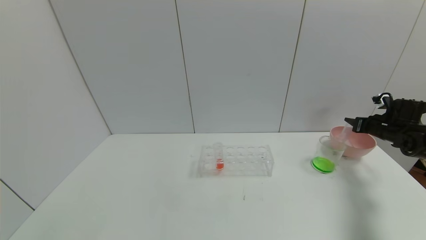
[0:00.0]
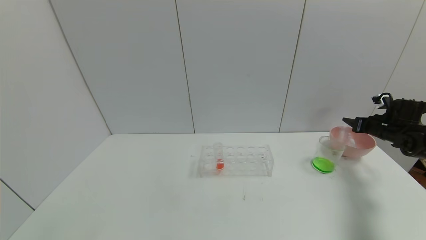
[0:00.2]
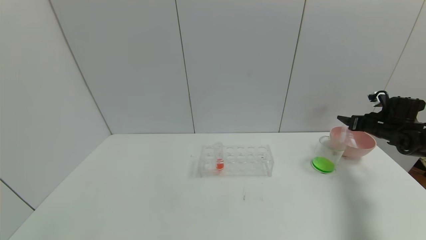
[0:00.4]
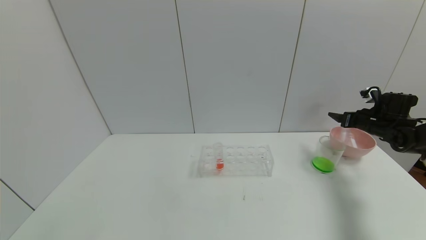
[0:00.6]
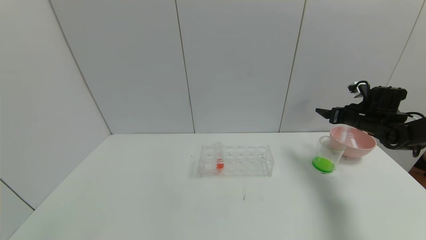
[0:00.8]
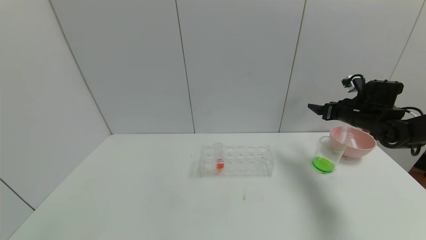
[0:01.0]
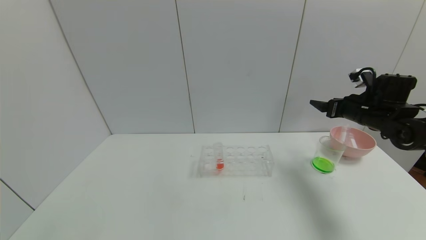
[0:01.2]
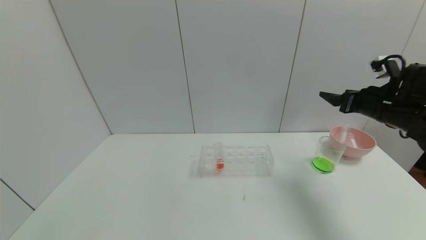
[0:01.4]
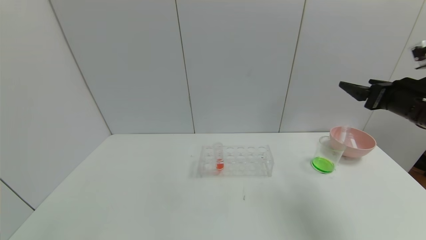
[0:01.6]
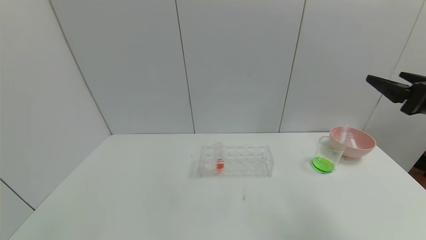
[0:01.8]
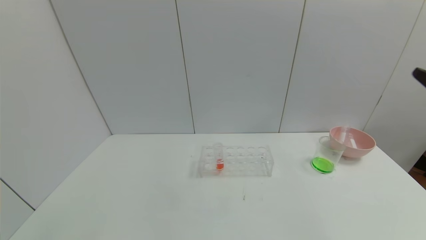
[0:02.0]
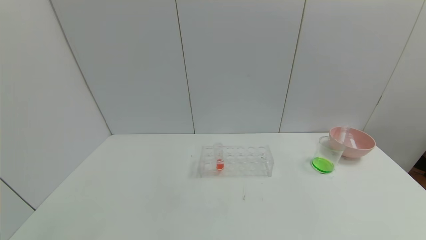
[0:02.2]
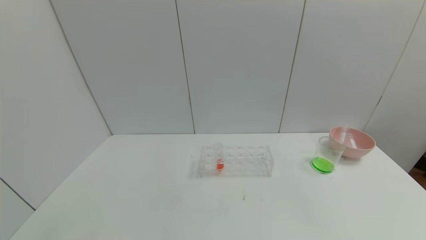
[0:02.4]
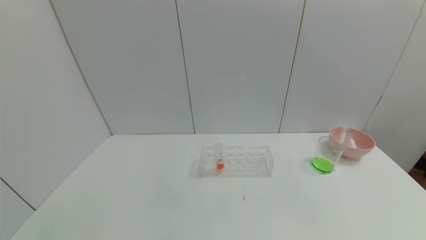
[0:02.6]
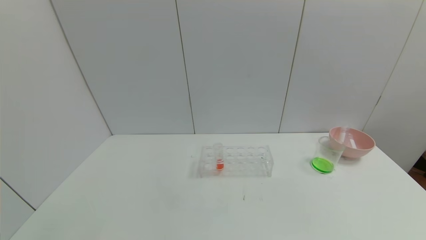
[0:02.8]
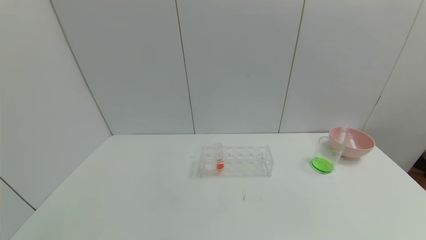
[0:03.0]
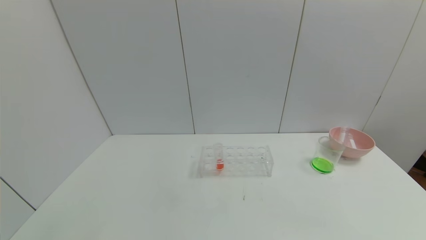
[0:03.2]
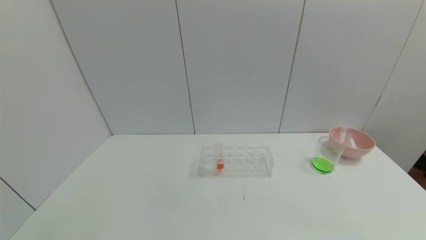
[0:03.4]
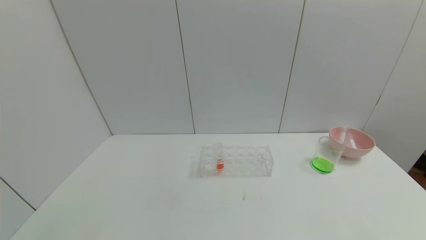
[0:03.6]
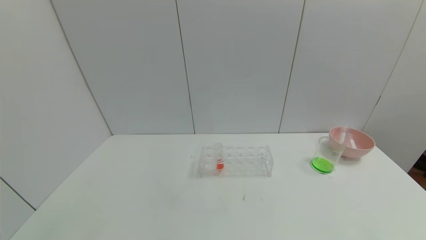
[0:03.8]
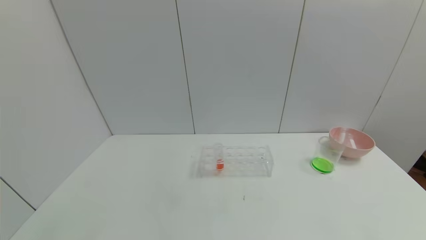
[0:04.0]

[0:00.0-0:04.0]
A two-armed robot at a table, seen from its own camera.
Task of the whole recording: pick up the test tube with yellow pigment and the test tube with blue pigment by grippers and pour them into the beaker.
Step, 0:00.0 to 0:02.0: Place the test tube into the bowl with right gripper.
0:00.0 to 0:01.4: The right gripper moves to the left, upward and backward, roughly 20 cm, and opens.
0:01.4 to 0:02.6: The right gripper moves backward, approximately 35 cm.
